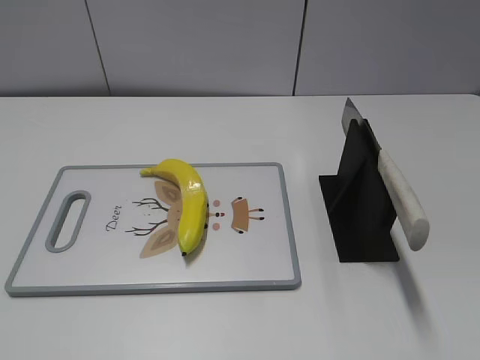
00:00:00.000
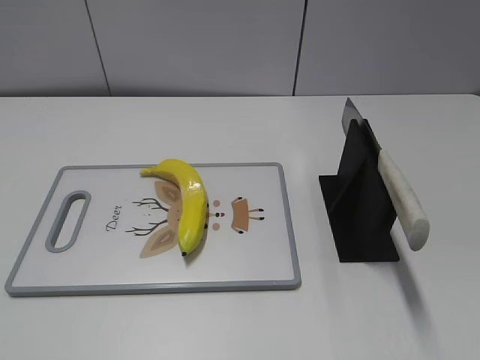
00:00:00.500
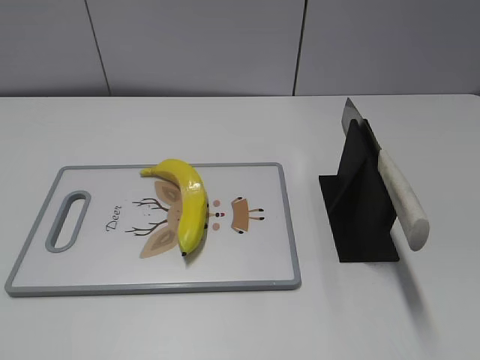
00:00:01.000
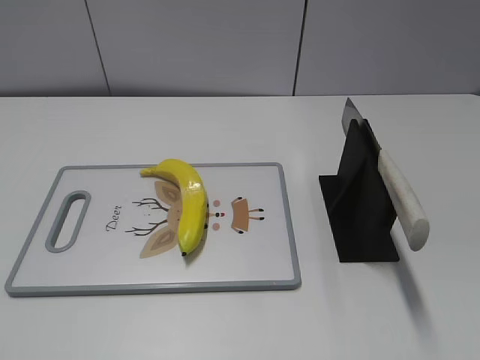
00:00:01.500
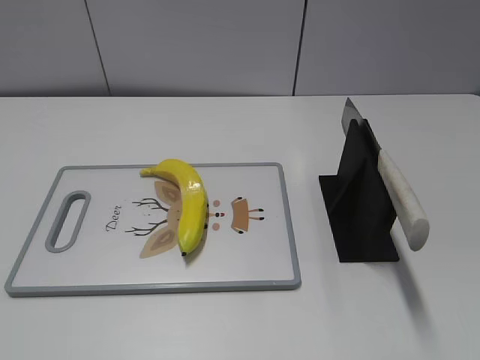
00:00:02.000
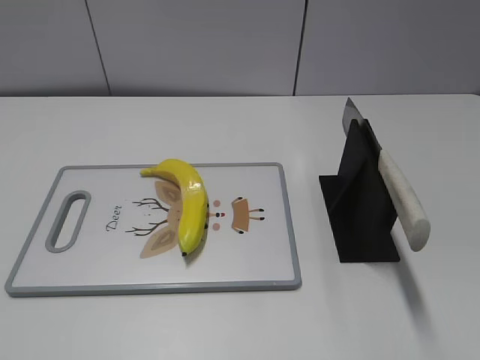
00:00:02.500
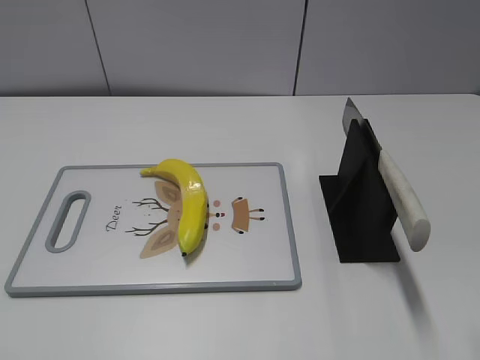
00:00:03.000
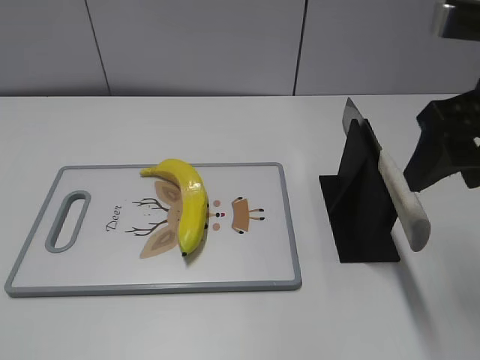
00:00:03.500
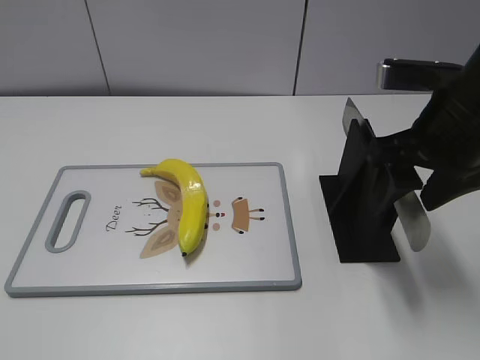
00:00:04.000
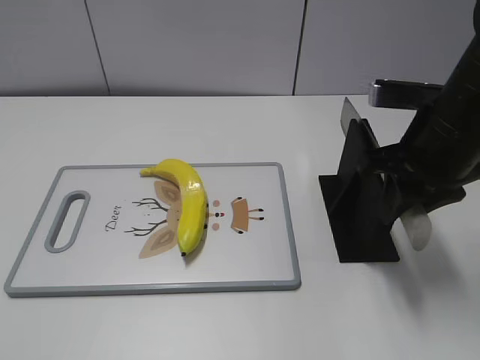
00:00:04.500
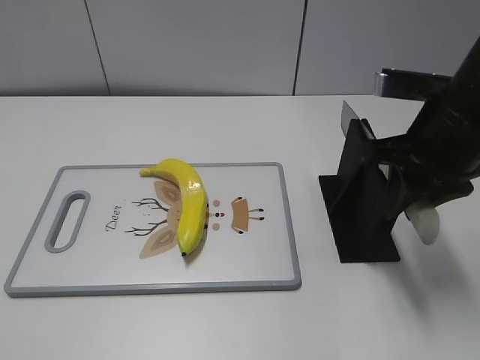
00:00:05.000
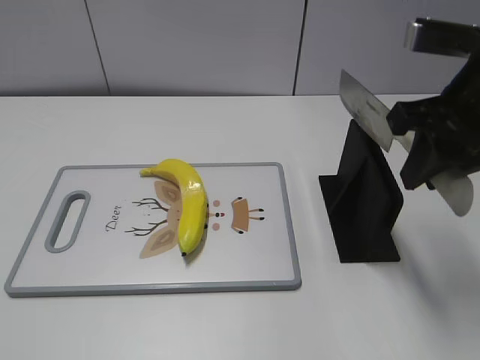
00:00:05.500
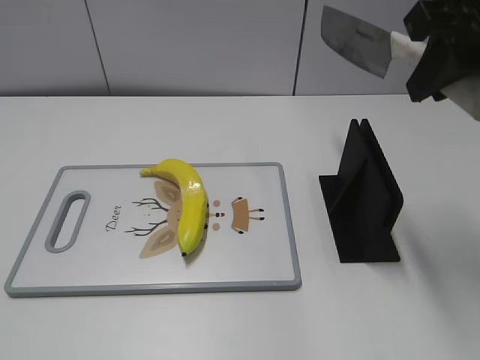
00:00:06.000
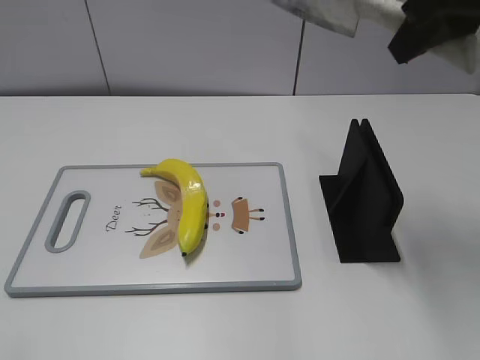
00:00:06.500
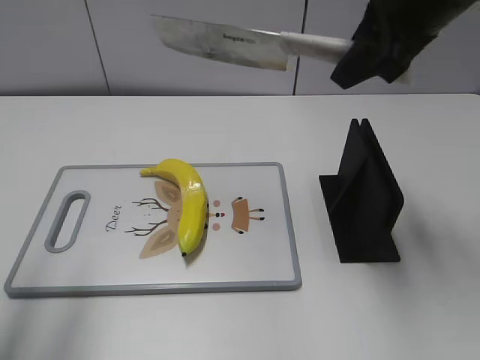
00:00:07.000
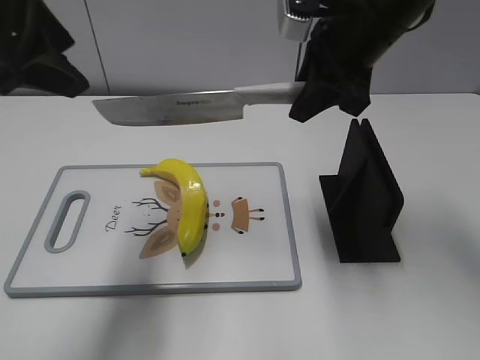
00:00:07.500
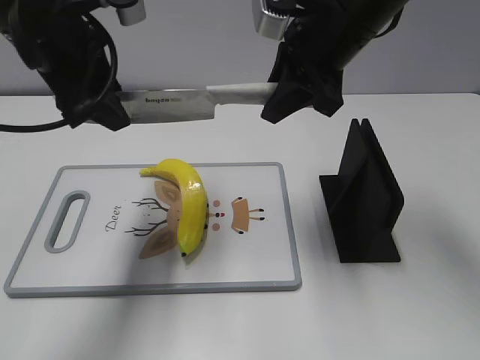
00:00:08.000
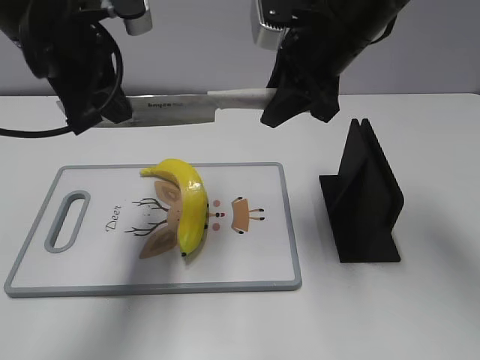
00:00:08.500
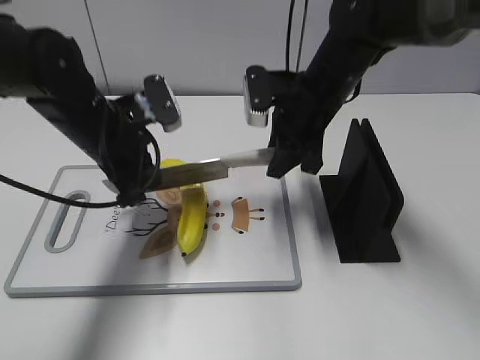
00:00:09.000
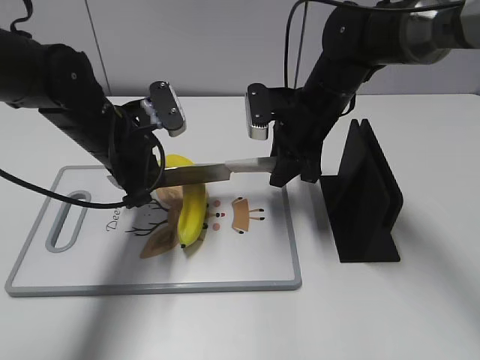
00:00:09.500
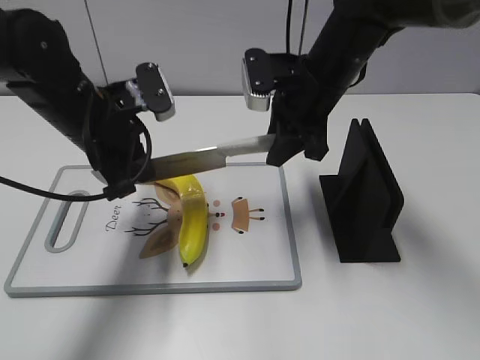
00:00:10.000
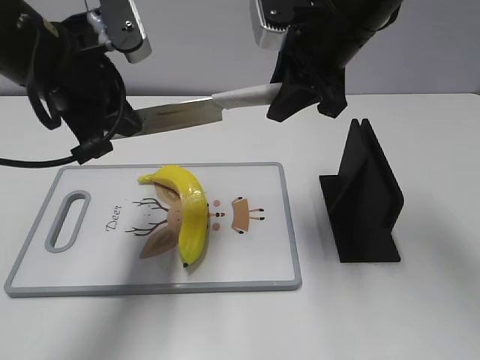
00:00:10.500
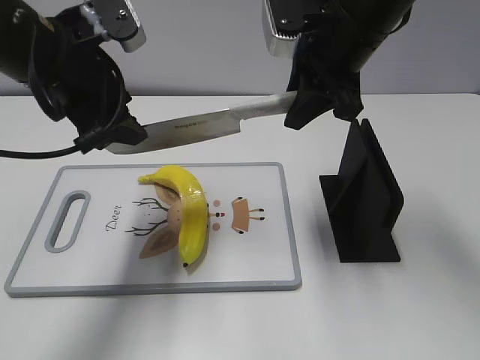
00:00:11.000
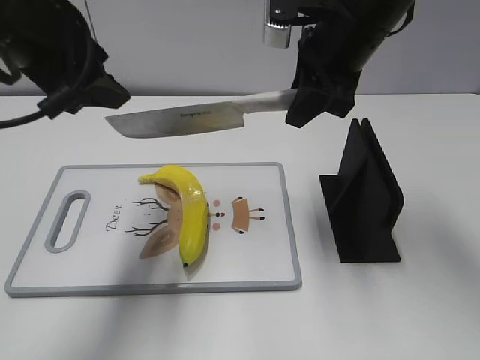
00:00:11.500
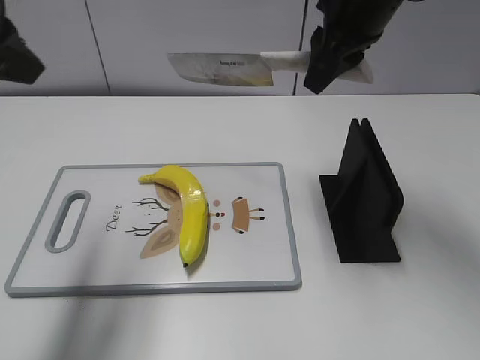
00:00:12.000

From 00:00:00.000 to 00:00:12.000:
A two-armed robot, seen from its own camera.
Task of the whole recording: cut plastic banana.
Step, from 00:00:00.000 to 00:00:05.500: Grab the knife handle with your right hand.
Step, from 00:00:06.000 to 00:00:10.000: Lift the knife with your right hand.
From 00:00:02.000 to 00:00:04.000: The right gripper travels forward and to the left by some 30 cm.
From 00:00:04.000 to 00:00:06.000: The right gripper shifts roughly 10 cm upward, and closes up.
From 00:00:06.000 to 00:00:08.000: The left gripper travels forward and to the right by about 35 cm; the right gripper moves forward, to the left and downward, approximately 15 cm.
From 00:00:08.000 to 00:00:10.000: The grippers both shift downward by roughly 10 cm. The left gripper closes its fingers.
From 00:00:10.000 to 00:00:12.000: The right gripper goes roughly 10 cm upward; the left gripper heads upward and backward, covering some 20 cm, and opens.

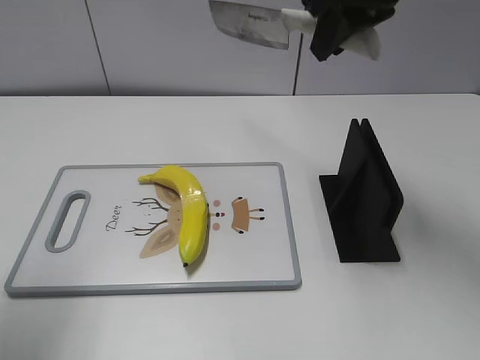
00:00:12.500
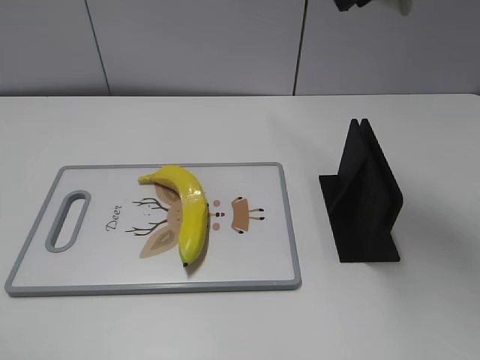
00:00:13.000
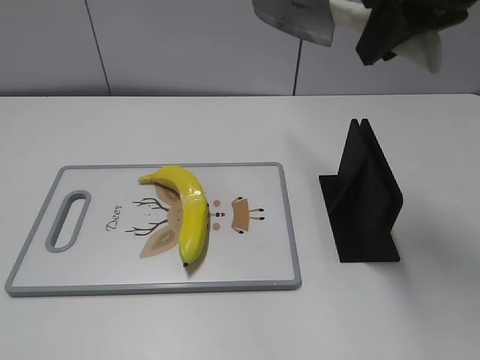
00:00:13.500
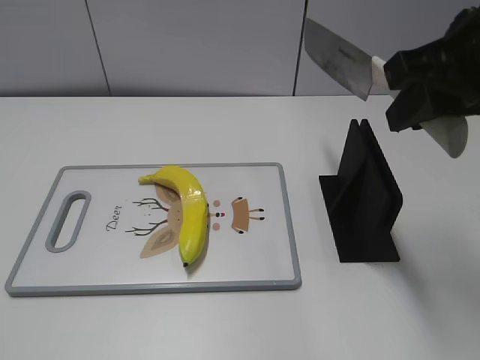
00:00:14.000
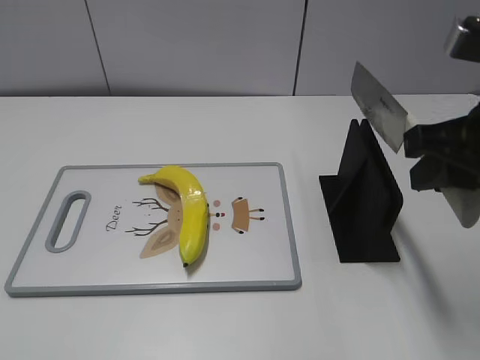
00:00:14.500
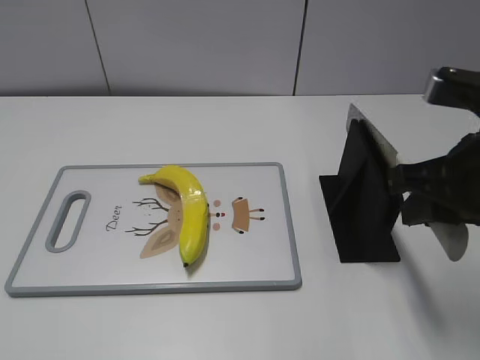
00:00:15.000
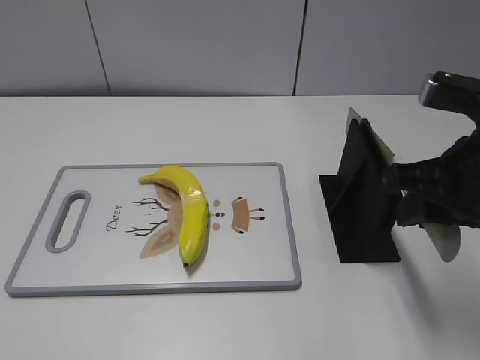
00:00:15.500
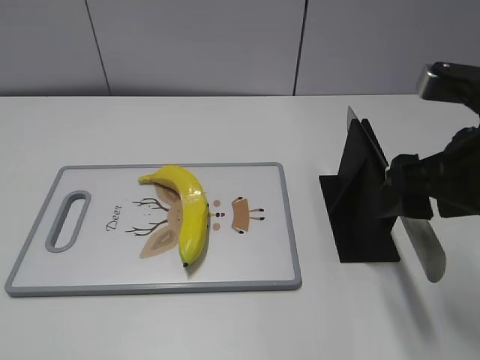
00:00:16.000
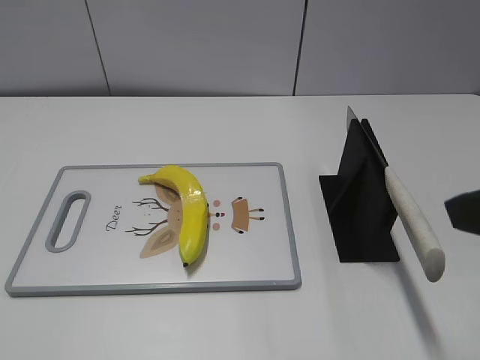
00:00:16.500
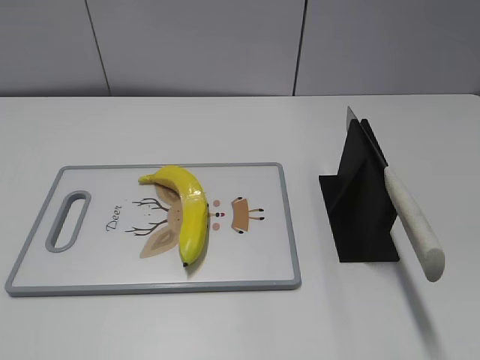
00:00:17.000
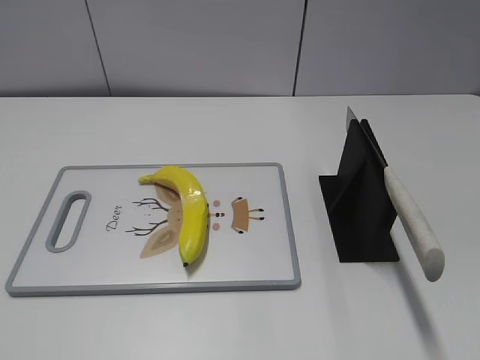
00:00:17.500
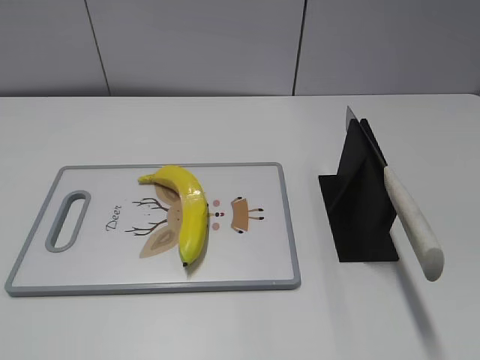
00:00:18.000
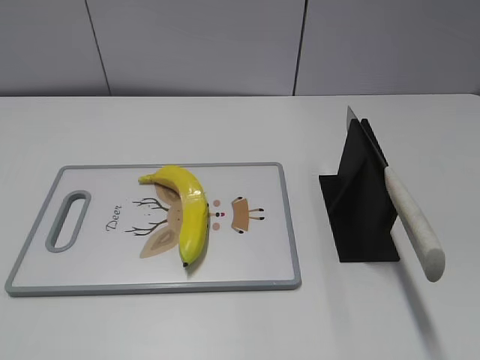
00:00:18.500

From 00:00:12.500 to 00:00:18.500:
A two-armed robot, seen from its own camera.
Task of the whole recording: cut plastic banana.
Step, from 00:00:14.000 to 00:00:18.500: Place the knife on the storage rack with your right hand.
From 00:00:12.500 to 00:00:14.500: The right gripper goes roughly 20 cm backward, to the right and downward; the left gripper travels backward by about 20 cm.
From 00:00:14.500 to 00:00:16.500: The right gripper goes approximately 5 cm backward, and opens.
From 00:00:16.500 to 00:00:18.500: The right gripper goes approximately 15 cm backward and to the right.
